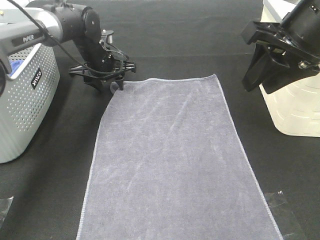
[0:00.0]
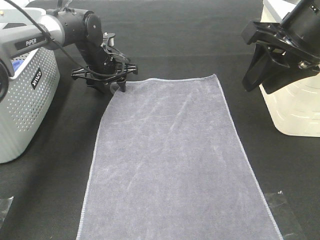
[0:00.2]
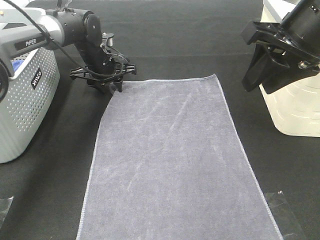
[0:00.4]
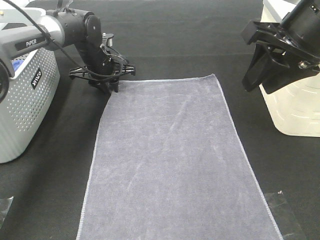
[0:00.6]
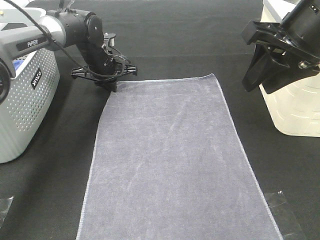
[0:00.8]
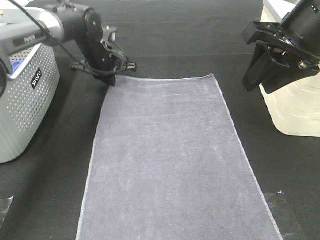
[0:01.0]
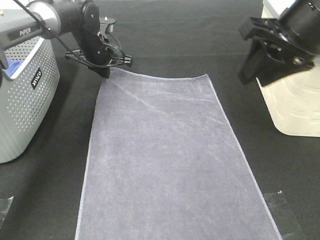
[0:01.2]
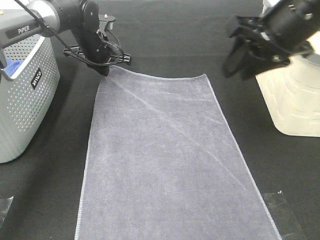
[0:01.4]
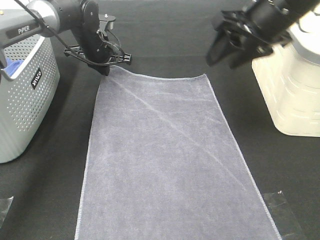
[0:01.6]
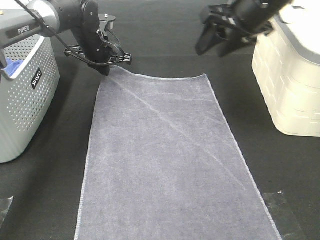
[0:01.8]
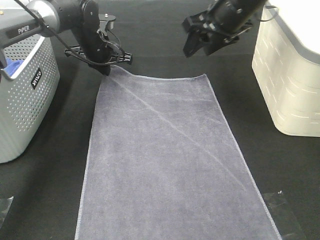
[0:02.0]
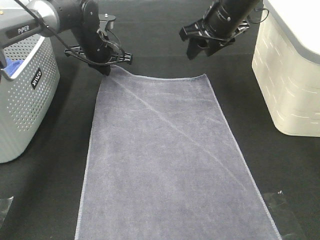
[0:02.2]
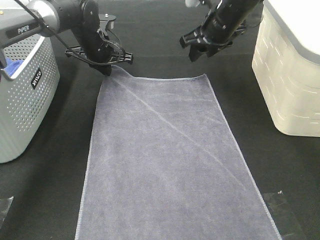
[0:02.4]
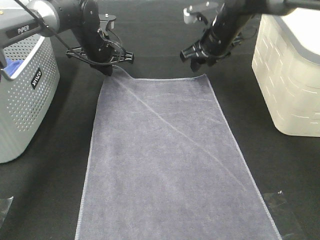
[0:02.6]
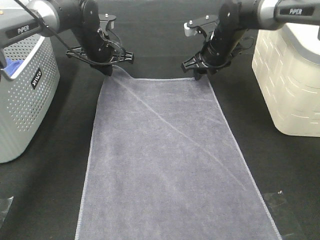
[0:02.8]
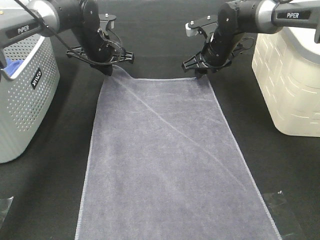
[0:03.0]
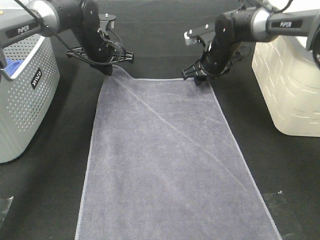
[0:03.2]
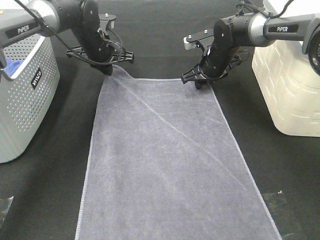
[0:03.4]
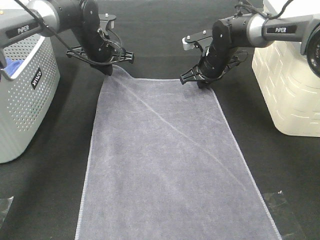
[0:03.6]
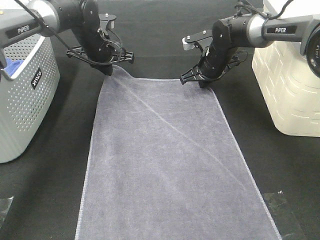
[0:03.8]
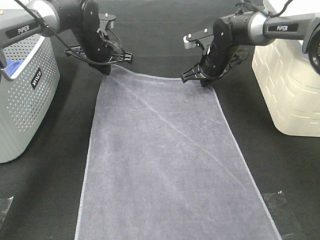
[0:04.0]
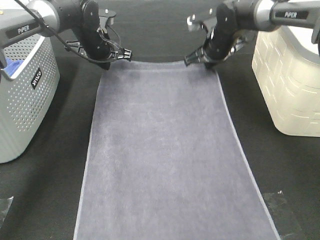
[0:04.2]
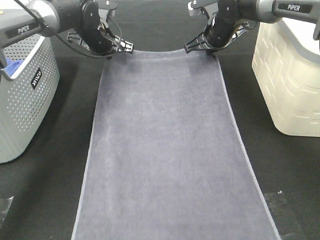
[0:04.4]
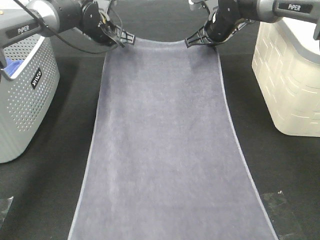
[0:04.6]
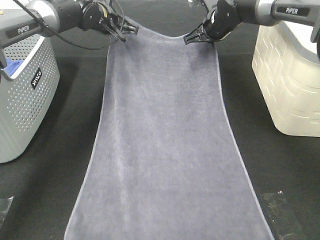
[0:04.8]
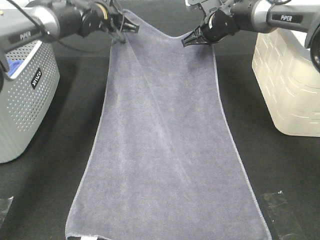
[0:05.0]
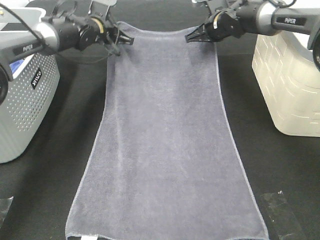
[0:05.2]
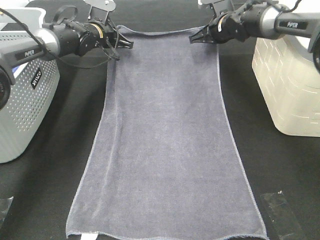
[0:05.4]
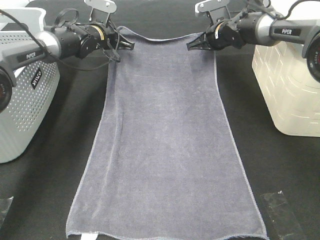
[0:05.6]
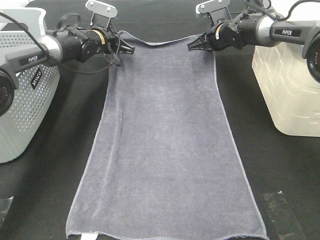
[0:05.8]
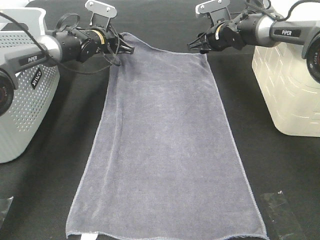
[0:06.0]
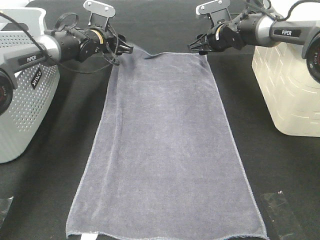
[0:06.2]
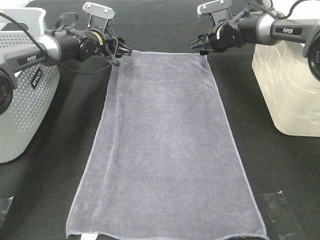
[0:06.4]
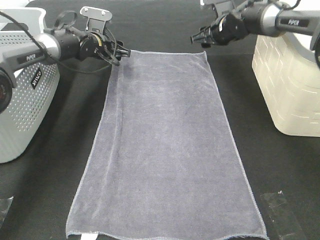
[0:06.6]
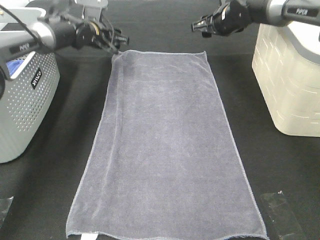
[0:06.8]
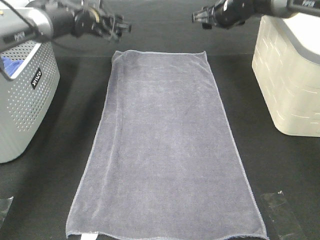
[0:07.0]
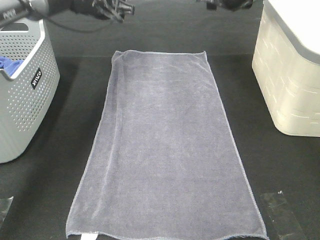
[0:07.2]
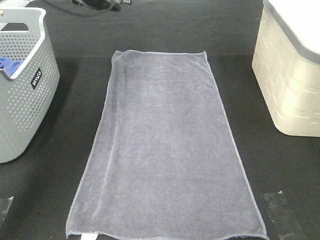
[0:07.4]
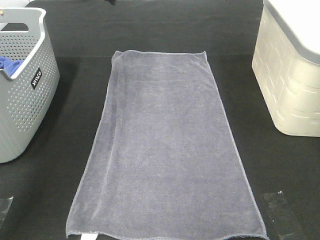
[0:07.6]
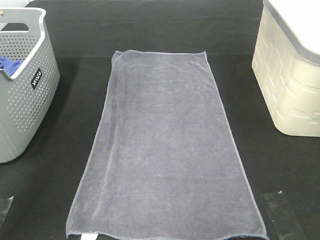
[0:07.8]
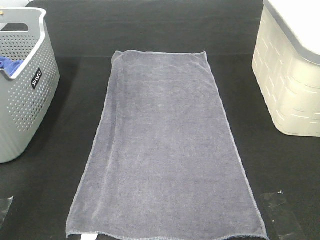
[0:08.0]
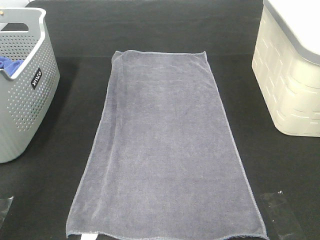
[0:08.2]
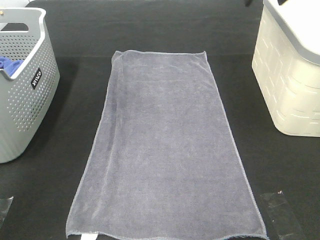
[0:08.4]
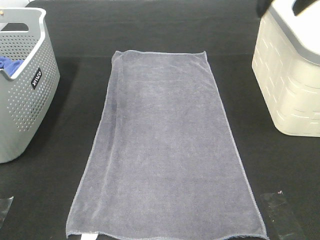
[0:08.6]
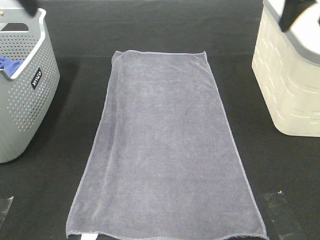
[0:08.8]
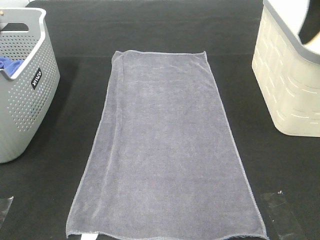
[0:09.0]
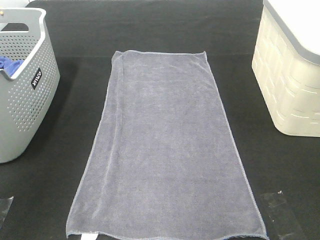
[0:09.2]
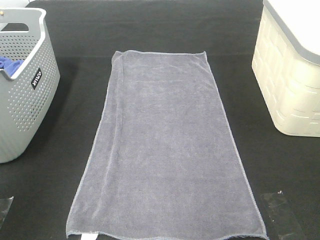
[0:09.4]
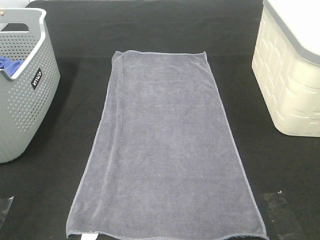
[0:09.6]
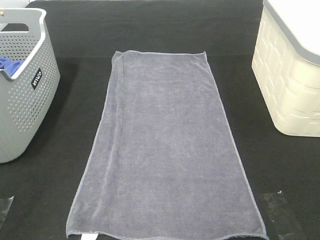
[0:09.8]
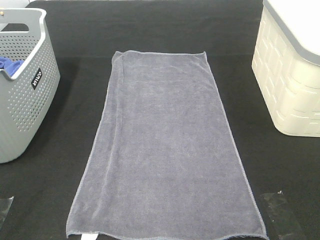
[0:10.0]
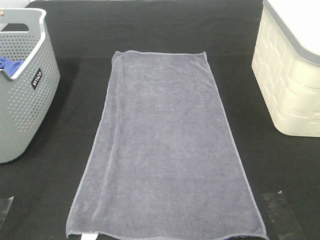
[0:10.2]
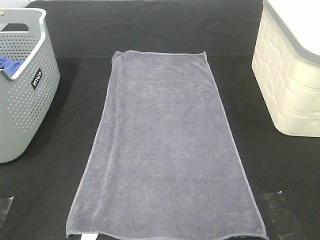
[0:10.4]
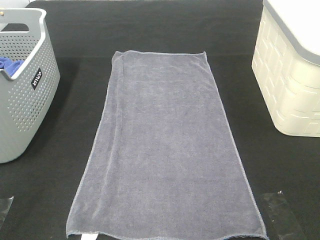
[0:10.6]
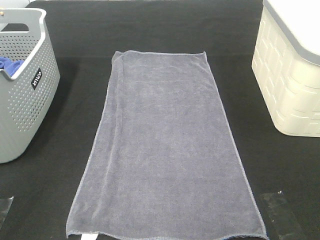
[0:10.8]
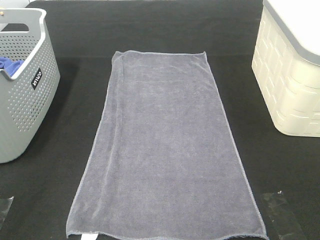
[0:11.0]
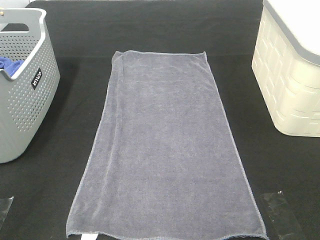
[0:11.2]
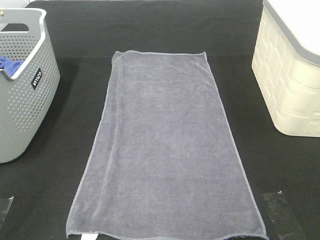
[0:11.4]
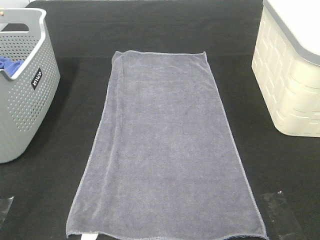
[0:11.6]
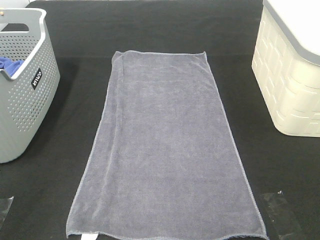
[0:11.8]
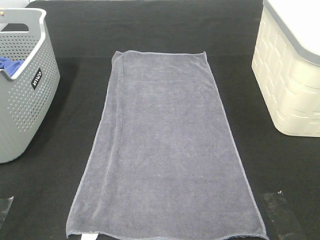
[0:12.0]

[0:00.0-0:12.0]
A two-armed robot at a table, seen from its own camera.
Task of the whole recording: Remove the towel and place it.
0:00.0 to 0:01.6: The right gripper shifts approximately 5 cm forward; the left gripper closes up.
0:01.6 to 0:03.0: The right gripper heads forward and downward, covering about 20 cm.
0:03.0 to 0:04.4: The right gripper closes.
0:04.4 to 0:06.0: The left gripper ends up some 5 cm from where it was, and opens up; the right gripper moves about 5 cm, and opens up.
0:06.0 to 0:07.6: The left gripper goes about 20 cm upward and backward, while the right gripper moves upward, about 20 cm.
0:07.6 to 0:09.0: The two grippers go some 25 cm backward.
0:09.0 to 0:10.4: The right gripper is displaced backward by about 25 cm; the left gripper travels backward and downward by roughly 25 cm.
0:10.4 to 0:12.0: Neither gripper changes place.

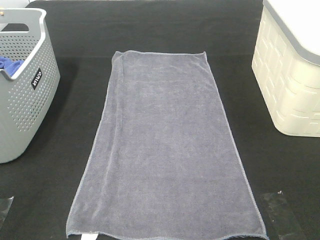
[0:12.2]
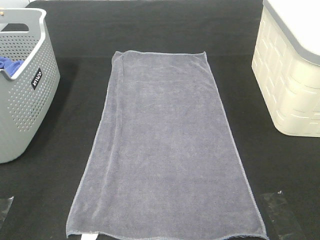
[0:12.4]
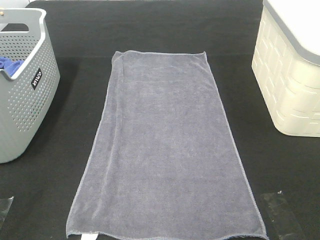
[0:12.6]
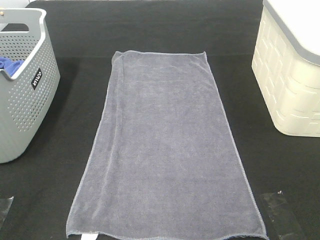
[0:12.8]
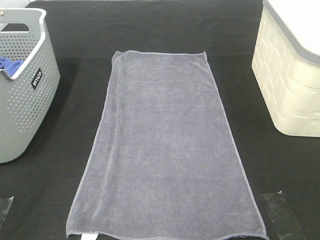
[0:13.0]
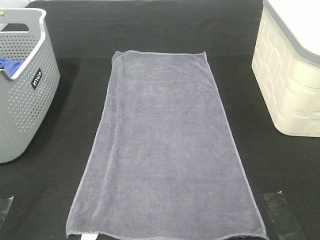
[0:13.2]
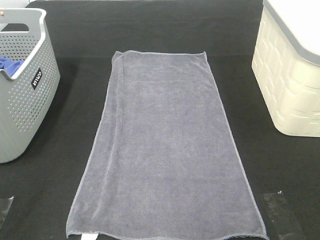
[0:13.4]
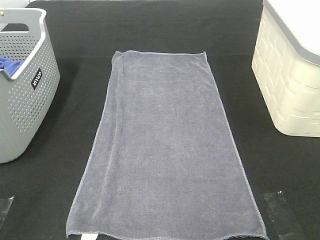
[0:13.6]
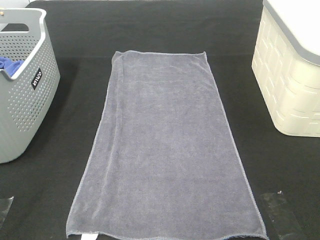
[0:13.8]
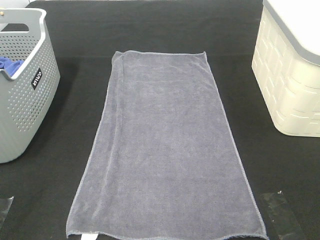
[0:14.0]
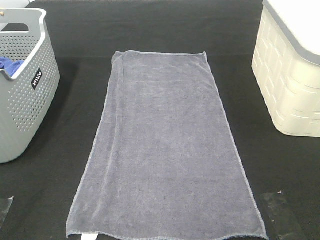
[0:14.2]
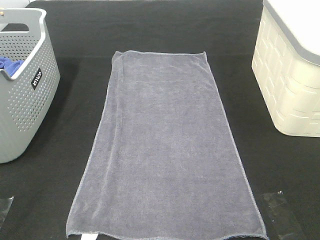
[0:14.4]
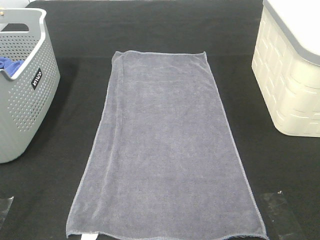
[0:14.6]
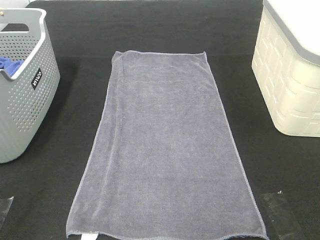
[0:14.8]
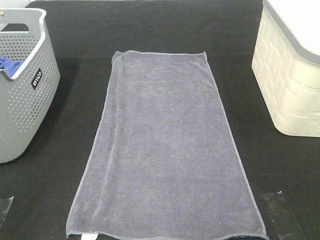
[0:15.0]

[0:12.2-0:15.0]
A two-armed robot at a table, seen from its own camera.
Task of the whole recording: Remove the towel and place it.
0:13.6 to 0:15.0: Neither gripper changes place.

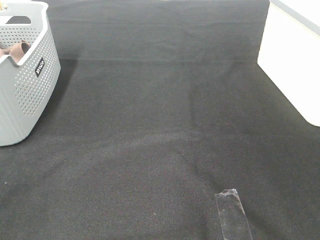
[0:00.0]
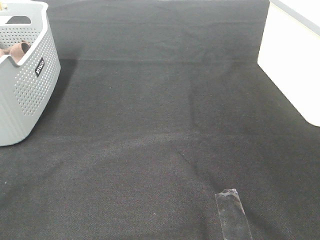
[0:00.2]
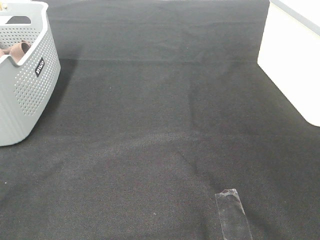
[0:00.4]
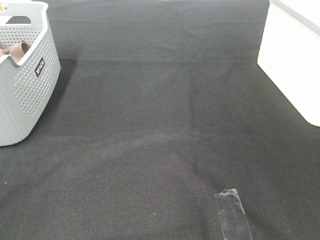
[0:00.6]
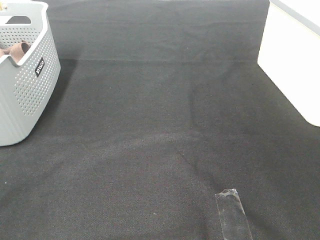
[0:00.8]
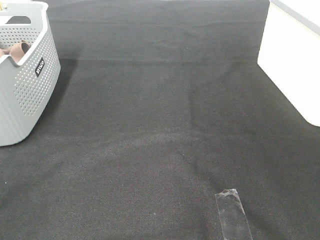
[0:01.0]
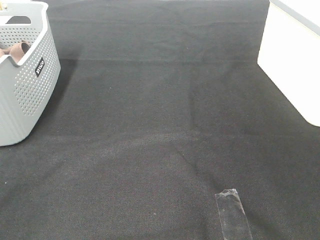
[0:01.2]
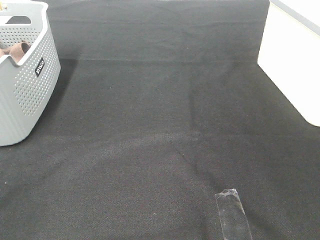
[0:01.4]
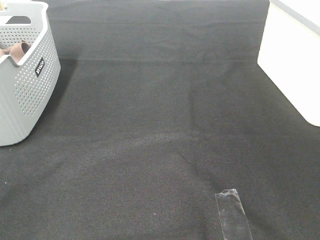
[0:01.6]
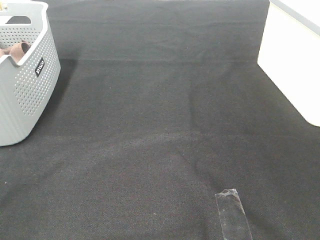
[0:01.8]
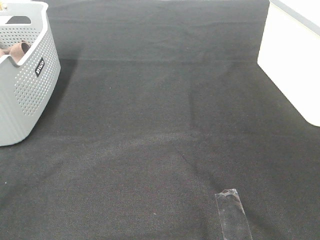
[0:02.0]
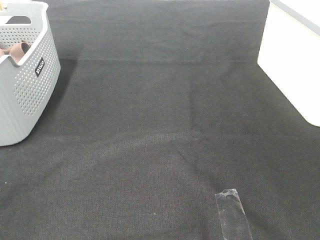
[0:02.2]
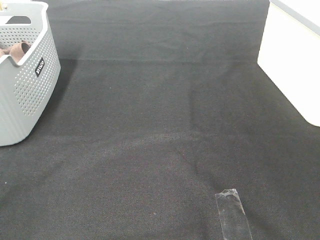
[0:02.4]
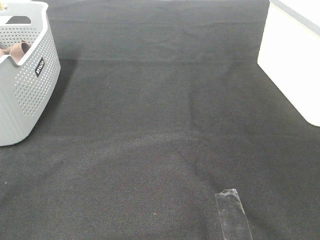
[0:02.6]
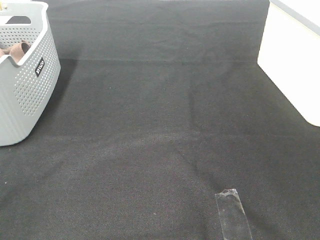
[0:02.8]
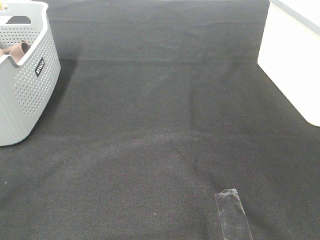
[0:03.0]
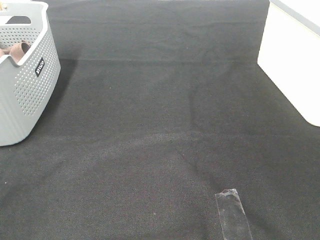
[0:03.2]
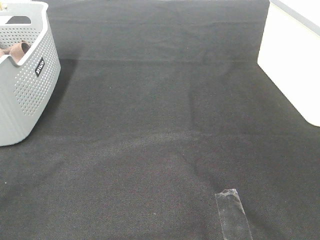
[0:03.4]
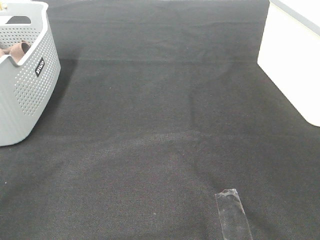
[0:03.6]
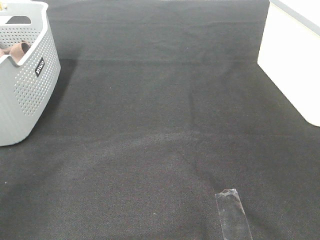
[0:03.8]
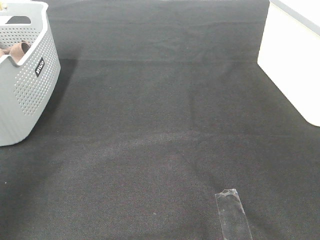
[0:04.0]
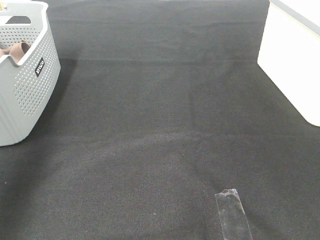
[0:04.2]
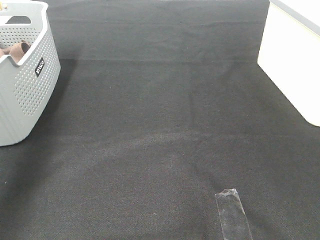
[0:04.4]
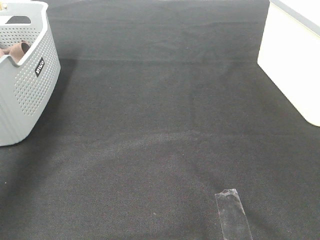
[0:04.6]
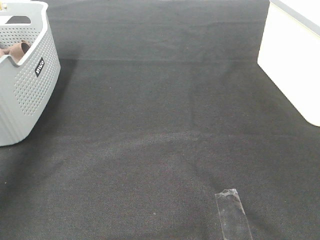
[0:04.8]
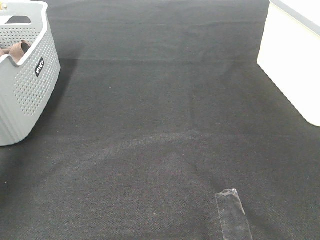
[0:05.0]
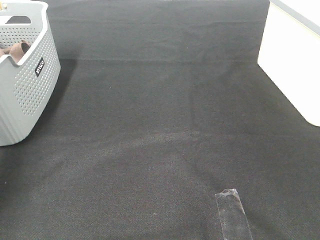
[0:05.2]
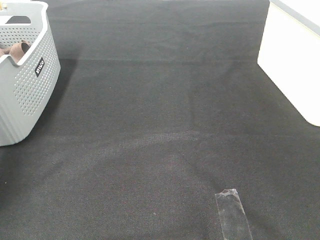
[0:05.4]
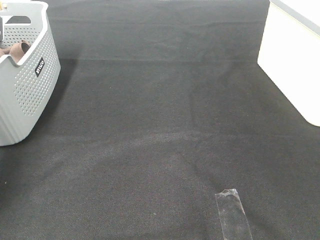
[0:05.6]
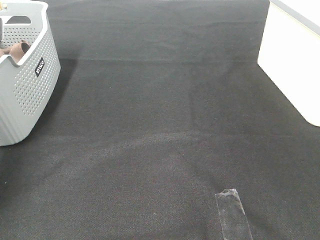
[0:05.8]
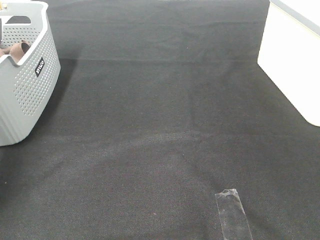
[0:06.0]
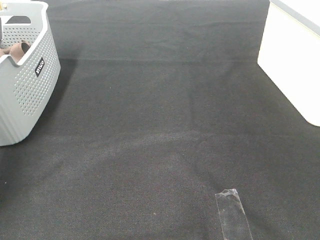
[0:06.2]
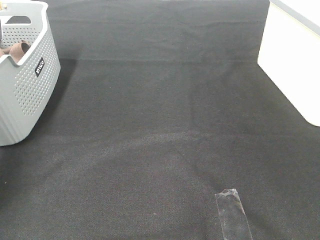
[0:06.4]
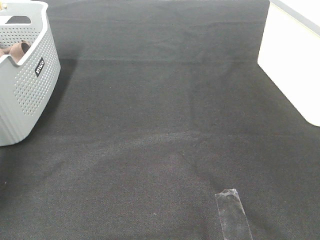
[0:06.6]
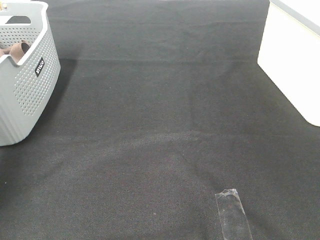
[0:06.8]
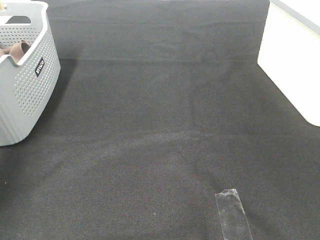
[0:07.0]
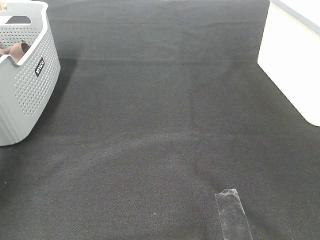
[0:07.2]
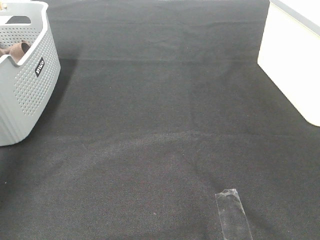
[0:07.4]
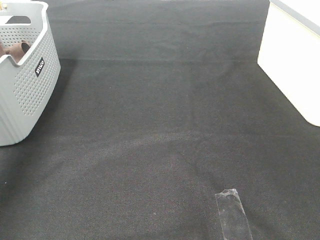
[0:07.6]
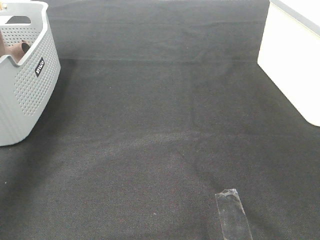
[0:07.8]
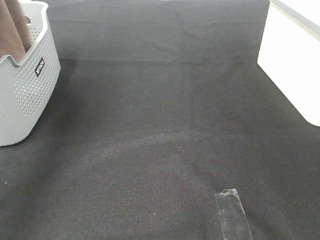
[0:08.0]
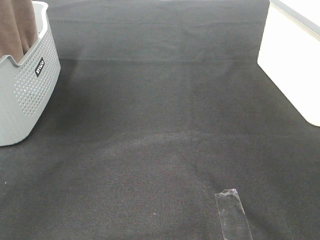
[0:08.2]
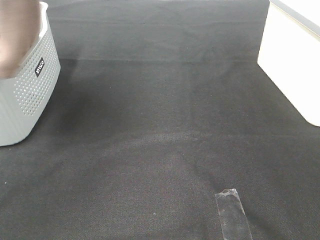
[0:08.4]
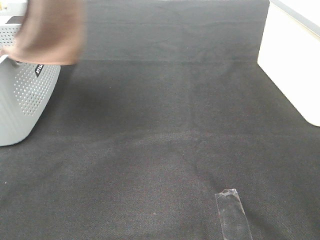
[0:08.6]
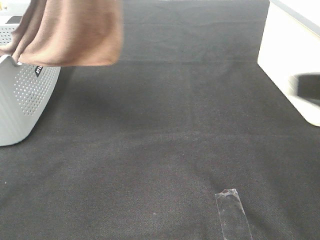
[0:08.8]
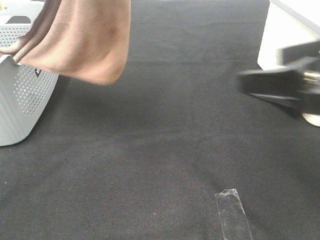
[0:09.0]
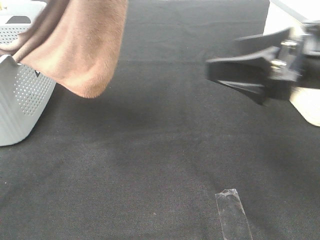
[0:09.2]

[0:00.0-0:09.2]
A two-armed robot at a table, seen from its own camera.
Task of the whole recording: Remove the towel and place it.
0:00.0 to 0:03.0: Neither gripper changes place.
0:03.0 to 0:04.6: The left gripper heads forward, covering roughly 40 cm.
0:04.6 to 0:06.2: The left gripper goes approximately 15 cm downward and forward, and closes.
0:07.6 to 0:09.2: The right gripper travels forward and to the left by approximately 25 cm. The left gripper goes some 30 cm to the right and backward.
